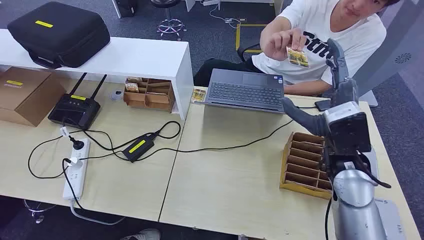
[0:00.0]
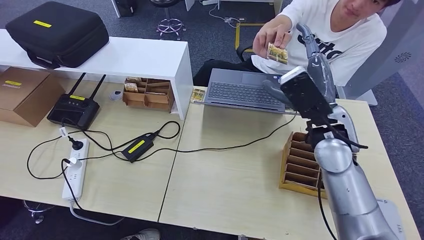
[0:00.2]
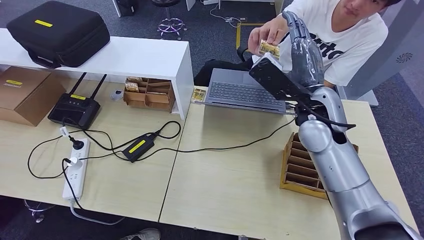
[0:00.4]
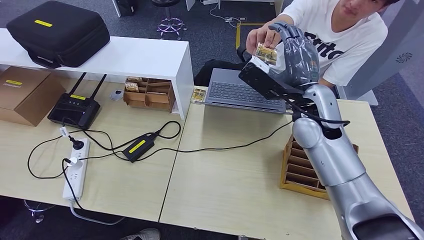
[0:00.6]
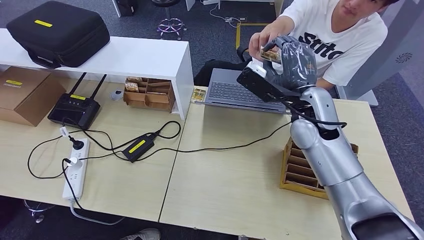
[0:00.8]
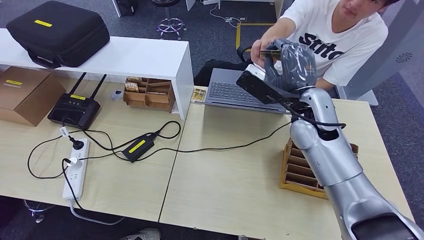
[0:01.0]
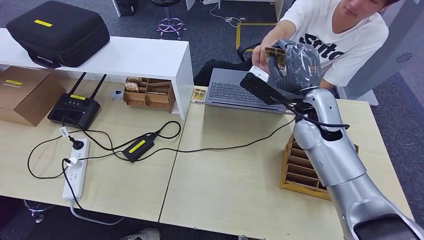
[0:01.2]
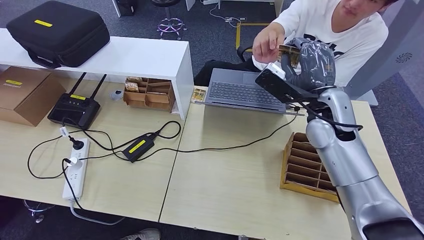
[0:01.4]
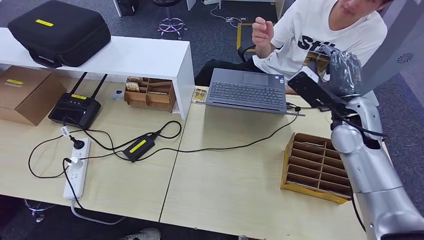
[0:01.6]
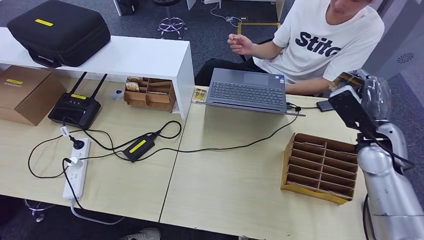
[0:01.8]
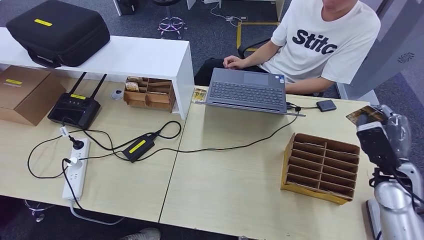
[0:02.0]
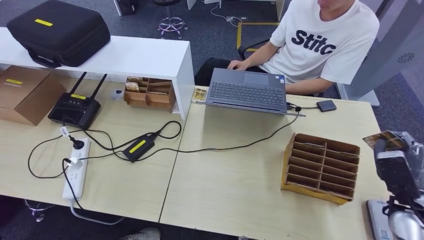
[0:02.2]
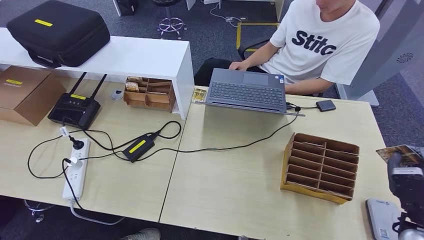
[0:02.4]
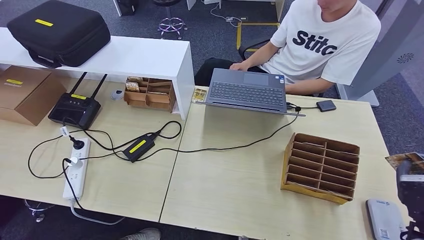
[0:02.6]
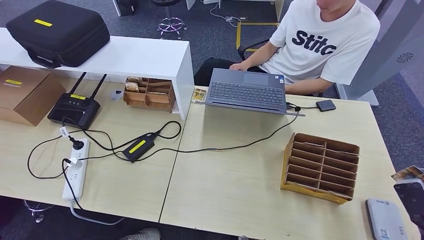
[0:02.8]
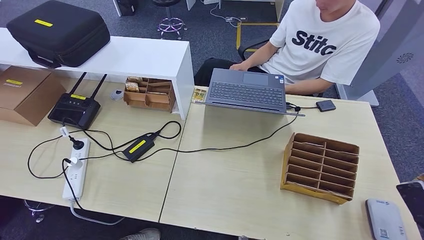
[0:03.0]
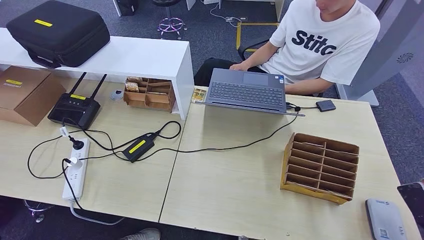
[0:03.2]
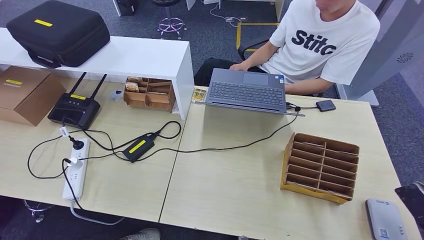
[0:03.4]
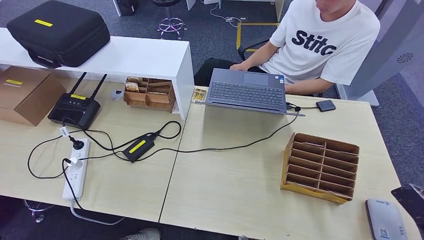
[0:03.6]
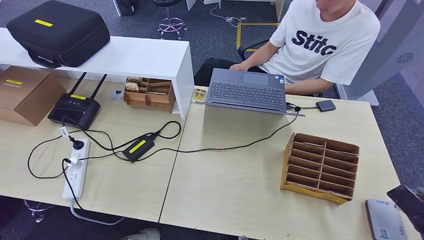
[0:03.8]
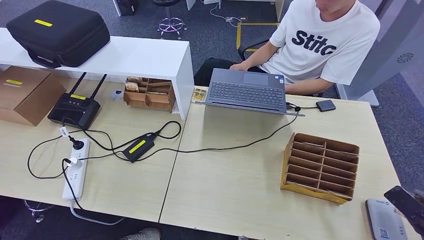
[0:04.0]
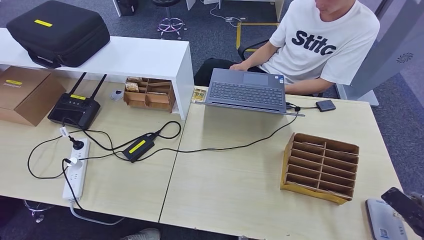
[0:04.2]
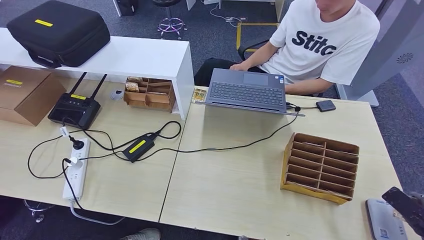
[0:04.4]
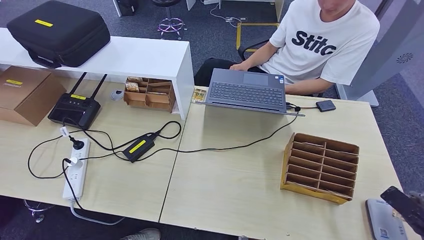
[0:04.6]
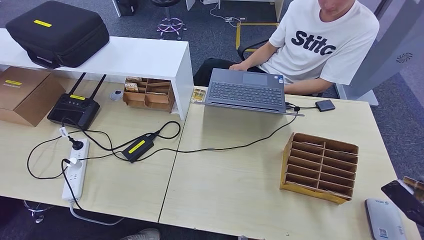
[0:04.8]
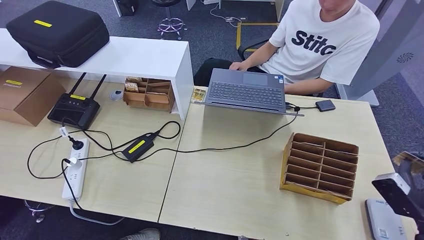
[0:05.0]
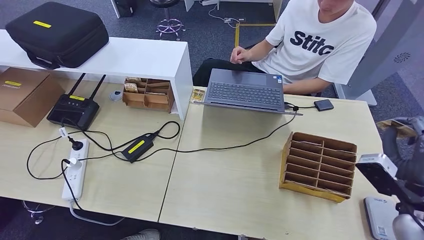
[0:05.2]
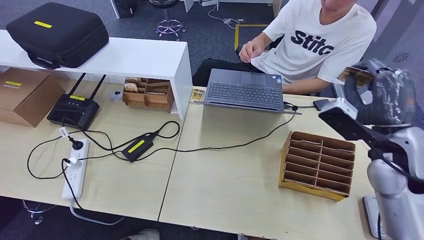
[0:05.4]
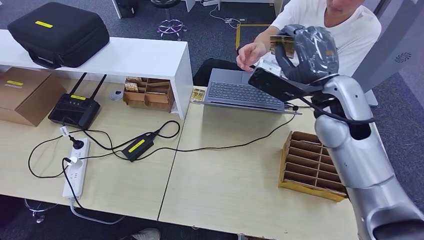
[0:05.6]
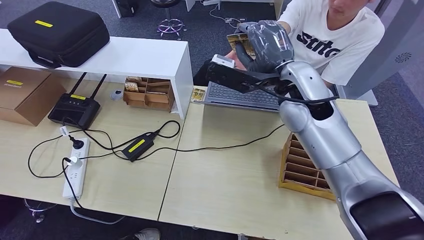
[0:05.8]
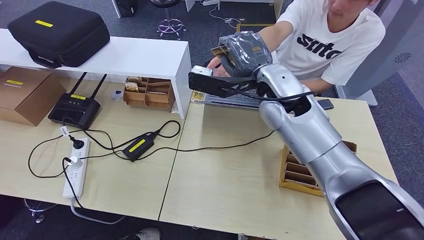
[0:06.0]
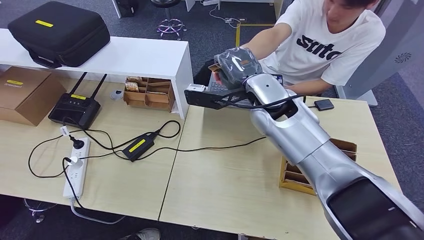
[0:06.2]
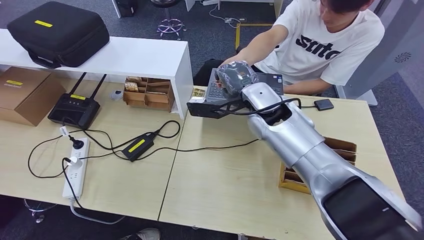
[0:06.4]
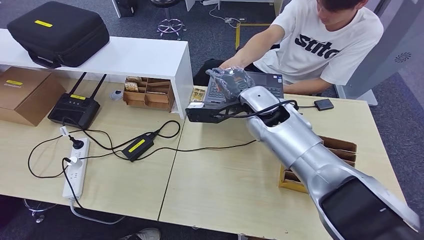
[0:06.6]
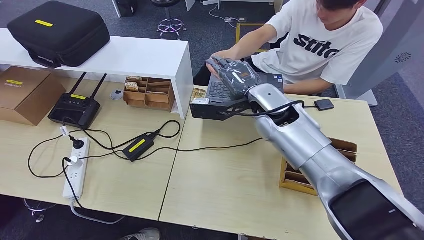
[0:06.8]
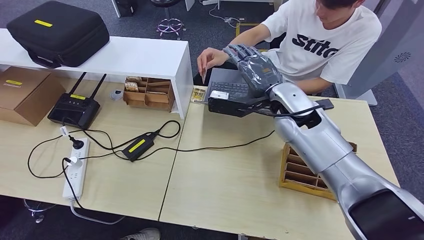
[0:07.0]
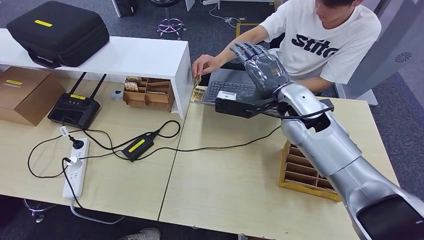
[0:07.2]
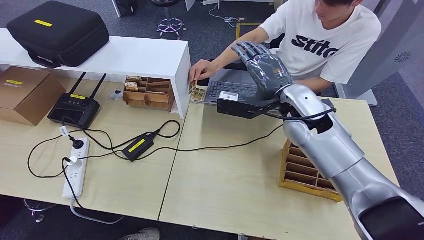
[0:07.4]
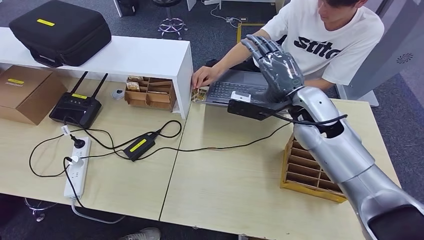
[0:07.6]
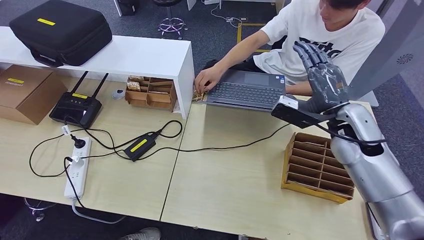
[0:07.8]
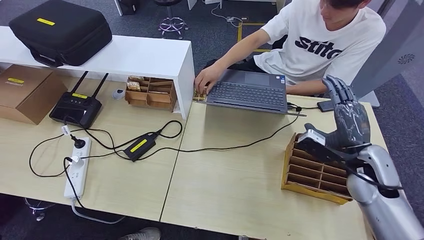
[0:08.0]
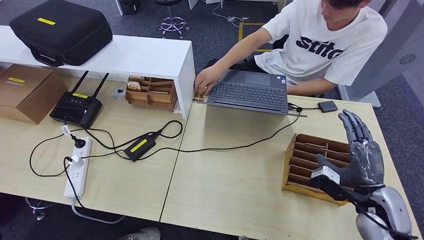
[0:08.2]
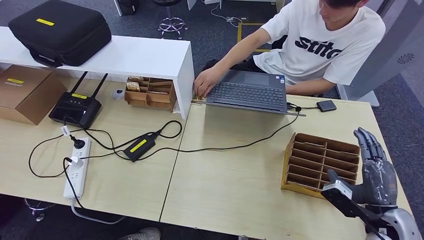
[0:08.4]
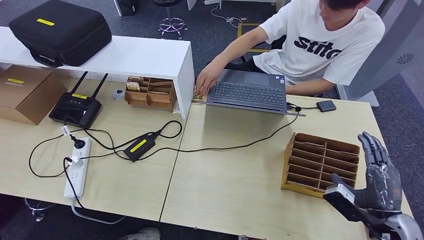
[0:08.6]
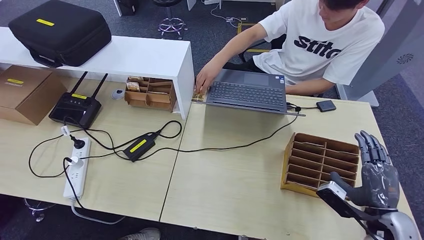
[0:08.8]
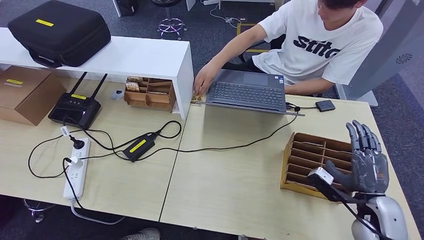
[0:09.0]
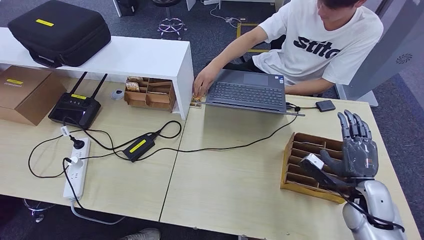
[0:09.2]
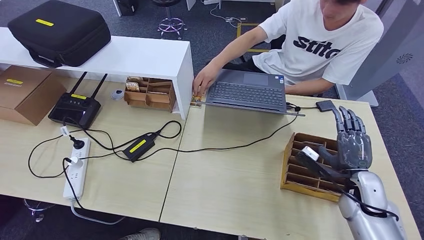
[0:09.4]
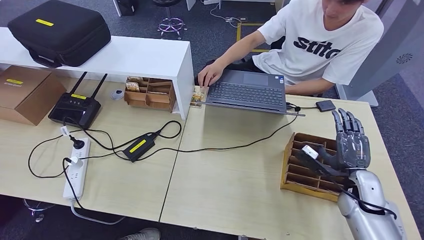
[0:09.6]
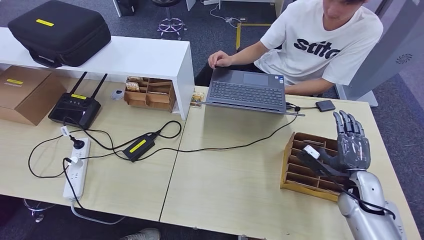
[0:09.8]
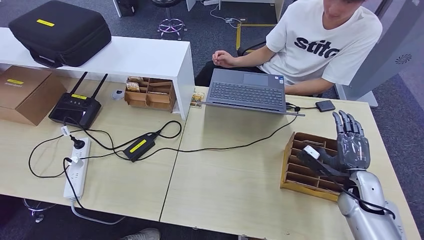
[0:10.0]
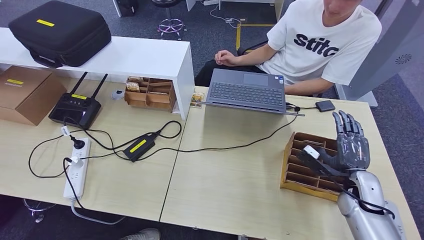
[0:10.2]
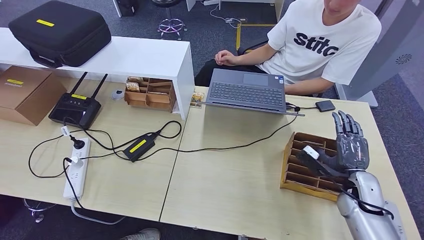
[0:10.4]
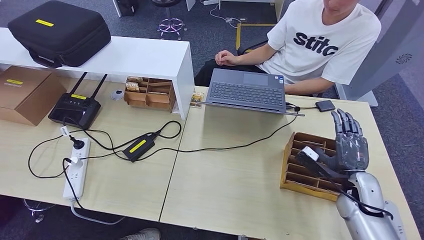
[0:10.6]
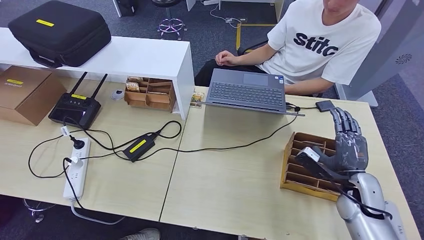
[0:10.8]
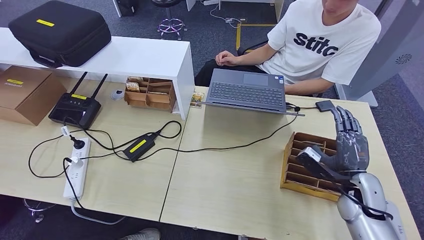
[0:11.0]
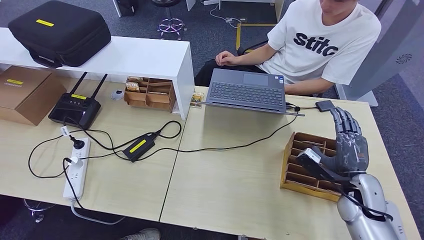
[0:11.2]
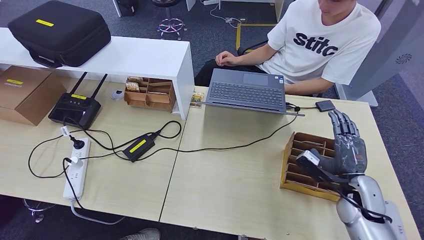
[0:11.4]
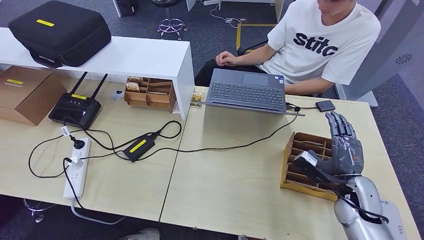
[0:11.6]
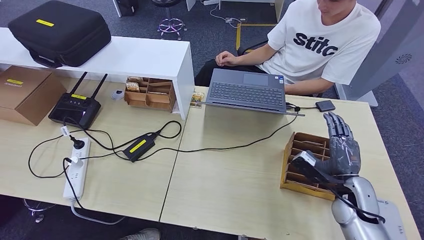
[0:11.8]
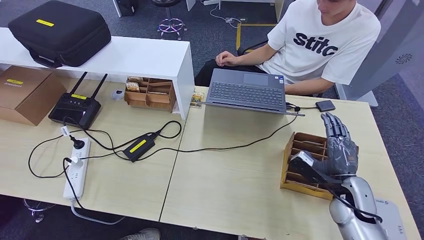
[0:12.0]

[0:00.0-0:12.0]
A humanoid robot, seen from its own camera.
Step, 0:00.0 to 0:02.0: Take the ID card from the person's hand.
Step, 0:02.2 to 0:04.4: Place the ID card on the card reader.
Step, 0:04.8 to 0:09.4: Hand the ID card to the person.
0:01.6 to 0:03.0: The right hand shifts approximately 35 cm backward, to the right and downward.
0:03.0 to 0:04.4: The right hand heads to the right, covering approximately 5 cm.
0:07.6 to 0:09.0: The right hand moves downward, to the right and backward, about 30 cm.
0:09.0 to 0:10.4: The right hand shifts about 5 cm forward.
0:10.4 to 0:12.0: The hands stay close to where they were, moving slightly.

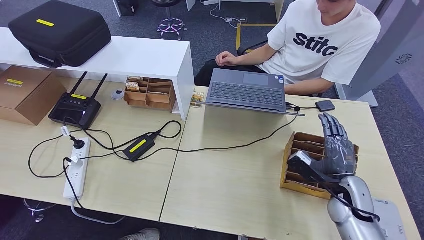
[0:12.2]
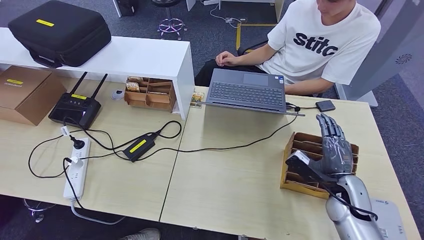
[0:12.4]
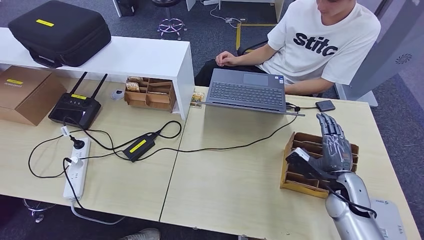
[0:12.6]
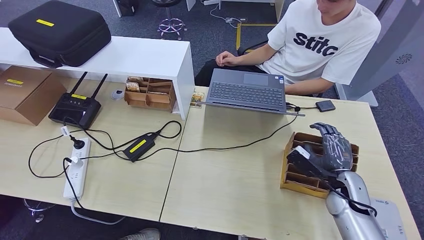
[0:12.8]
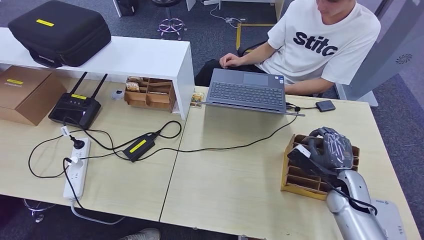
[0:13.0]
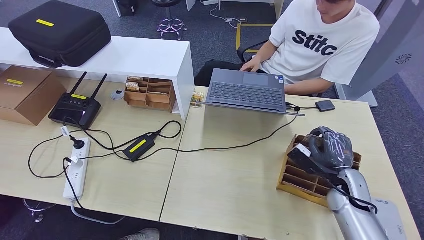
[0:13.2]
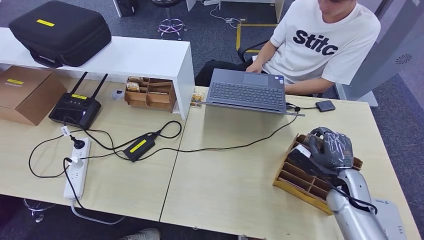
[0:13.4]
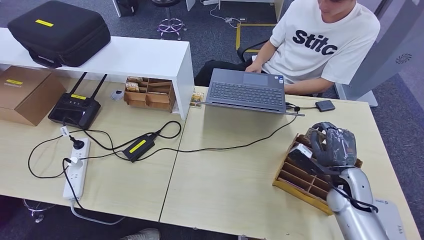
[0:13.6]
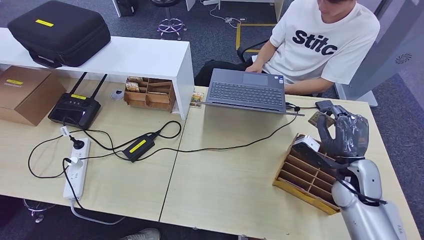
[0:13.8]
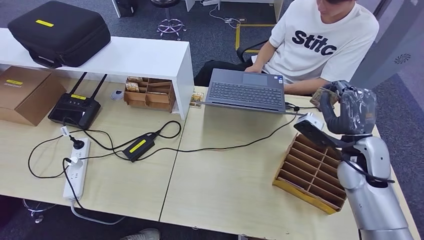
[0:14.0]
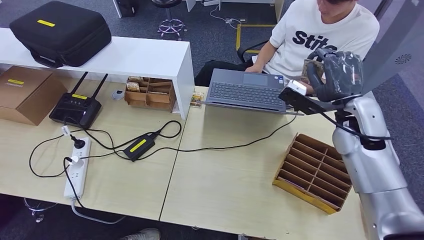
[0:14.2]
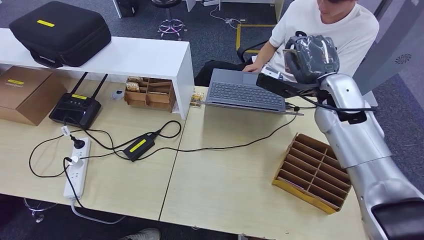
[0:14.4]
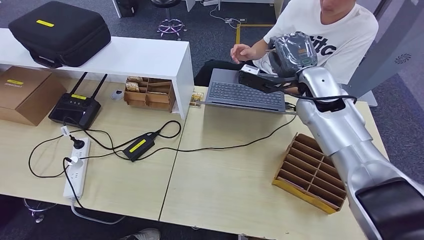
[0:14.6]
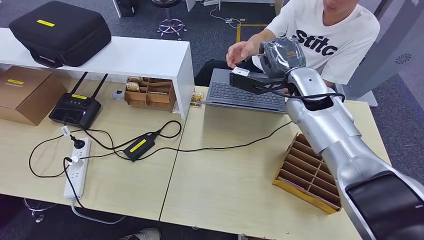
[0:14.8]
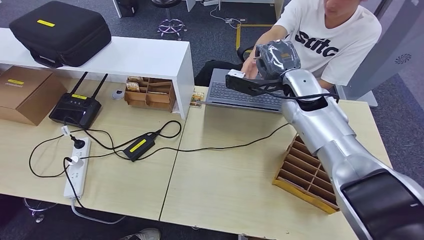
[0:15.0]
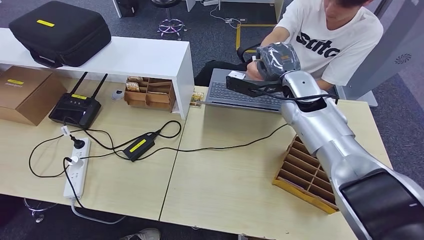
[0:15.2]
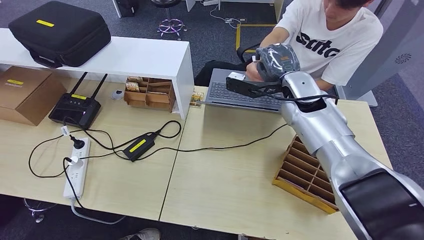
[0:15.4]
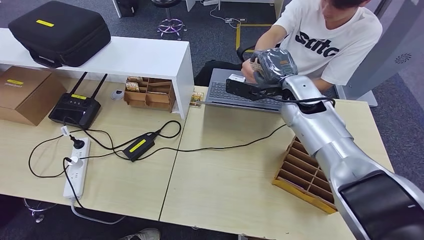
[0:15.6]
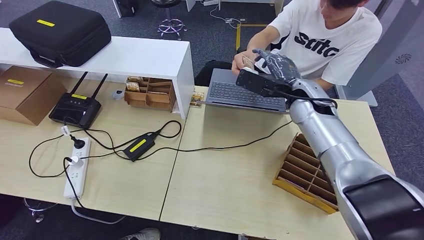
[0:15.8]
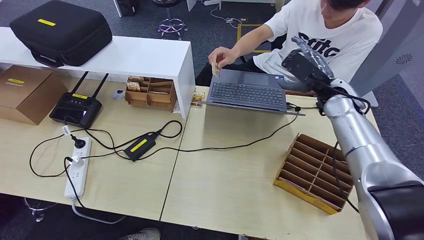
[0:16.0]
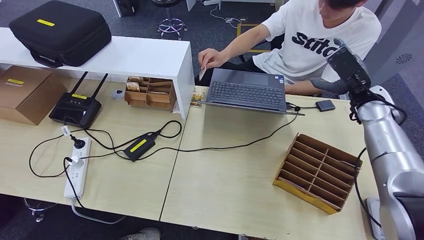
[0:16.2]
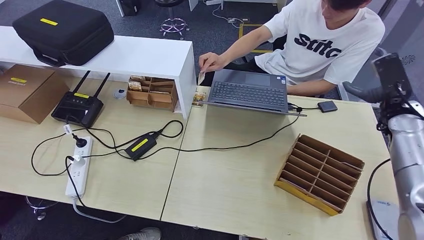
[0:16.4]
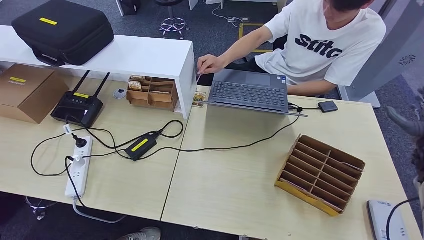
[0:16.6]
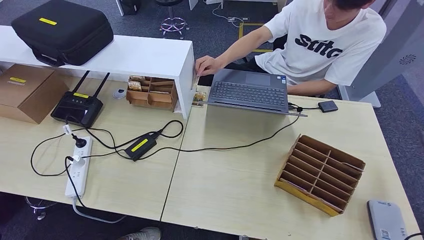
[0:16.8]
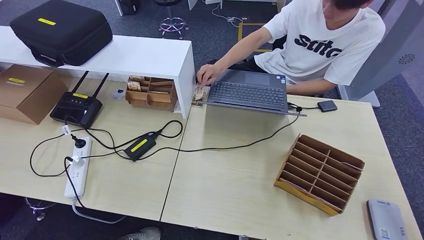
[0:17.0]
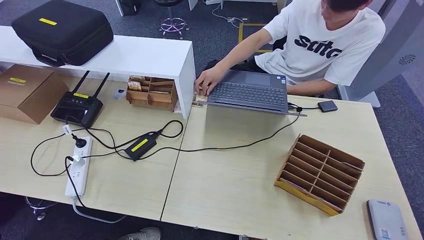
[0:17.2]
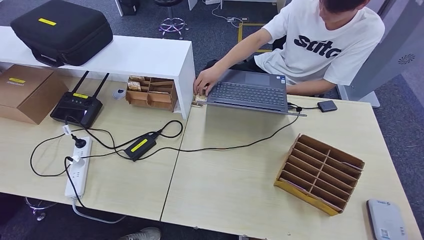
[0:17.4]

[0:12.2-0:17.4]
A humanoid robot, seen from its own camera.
Step, 0:12.2 to 0:15.0: Pick up the room key from the key card box.
Step, 0:15.4 to 0:17.4: Hand the room key to the person.
0:12.2 to 0:14.0: The right hand is displaced upward and forward by roughly 15 cm.
0:14.0 to 0:15.6: The right hand heads to the left, forward and upward, covering approximately 20 cm.
